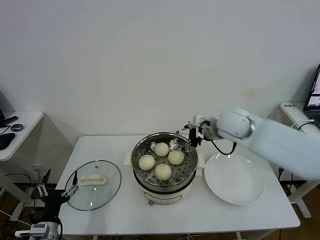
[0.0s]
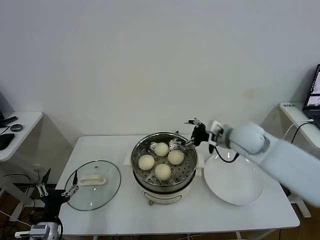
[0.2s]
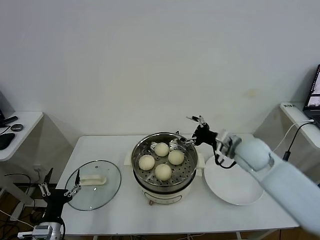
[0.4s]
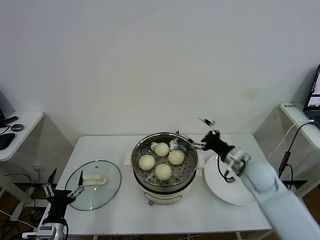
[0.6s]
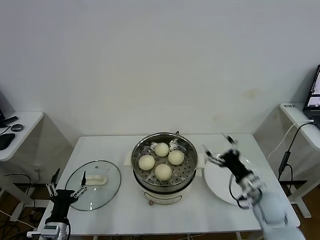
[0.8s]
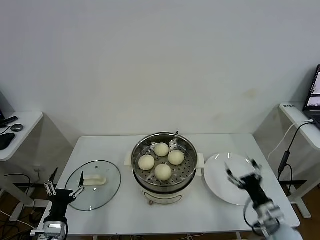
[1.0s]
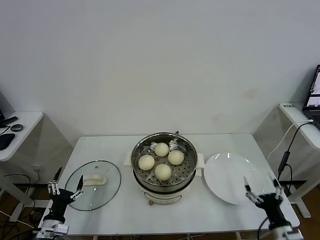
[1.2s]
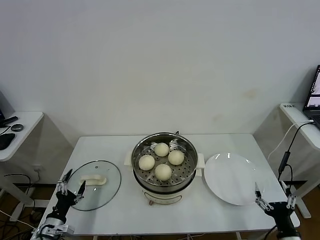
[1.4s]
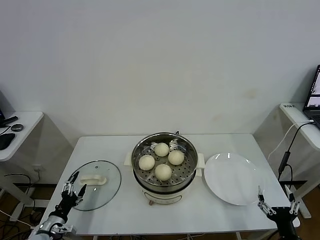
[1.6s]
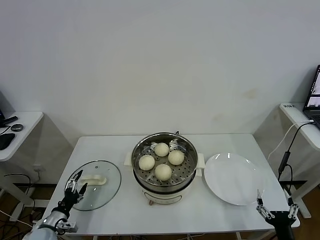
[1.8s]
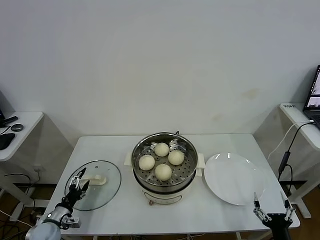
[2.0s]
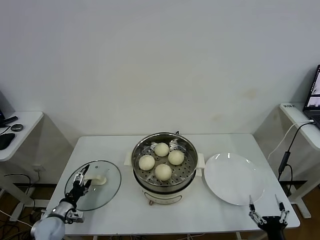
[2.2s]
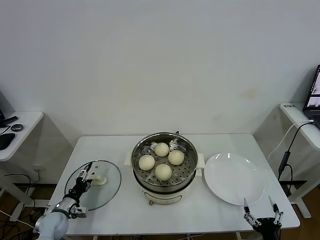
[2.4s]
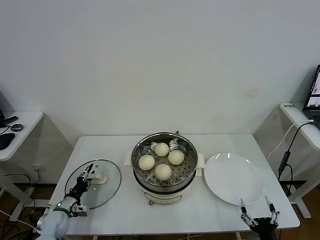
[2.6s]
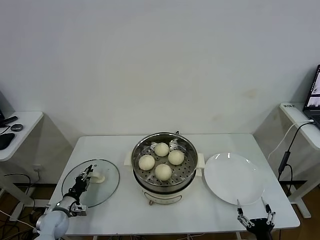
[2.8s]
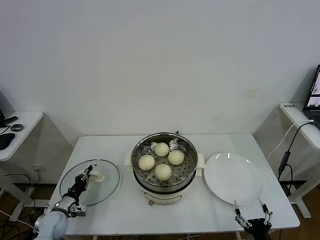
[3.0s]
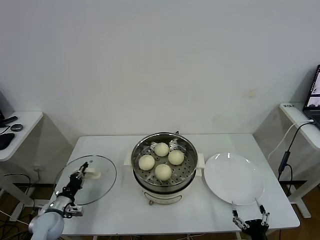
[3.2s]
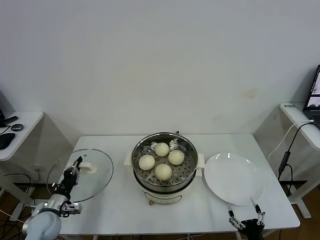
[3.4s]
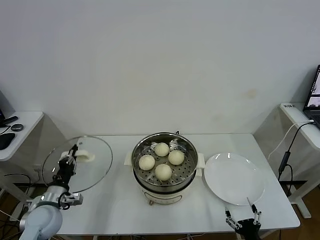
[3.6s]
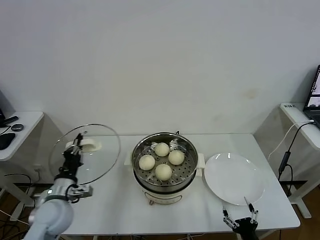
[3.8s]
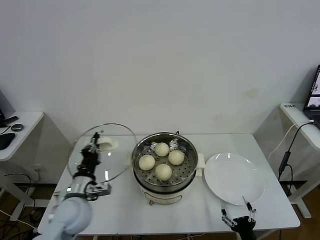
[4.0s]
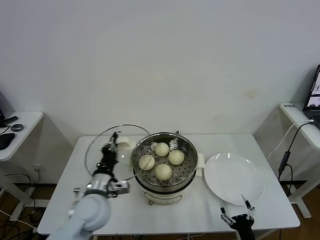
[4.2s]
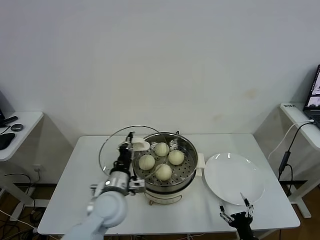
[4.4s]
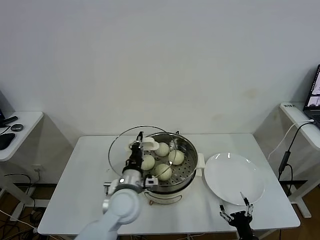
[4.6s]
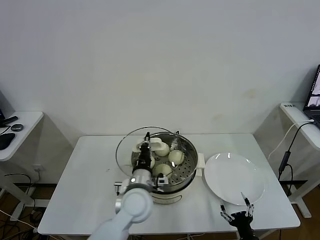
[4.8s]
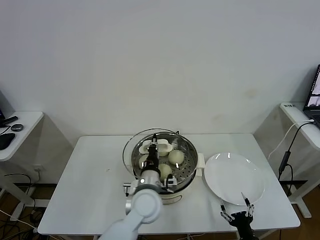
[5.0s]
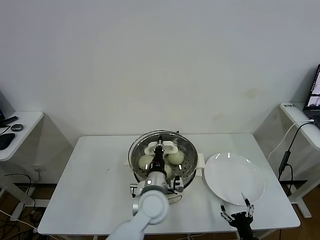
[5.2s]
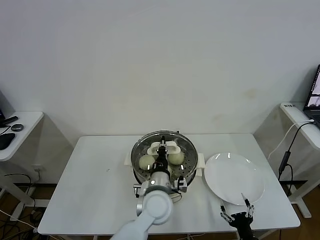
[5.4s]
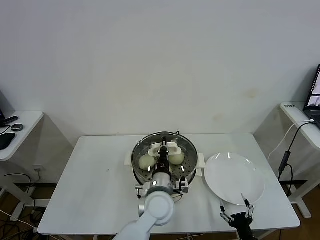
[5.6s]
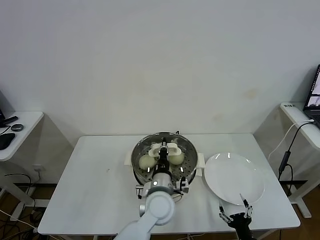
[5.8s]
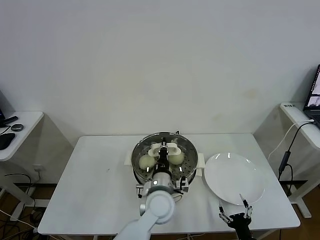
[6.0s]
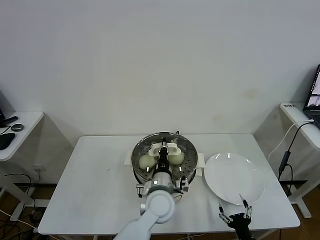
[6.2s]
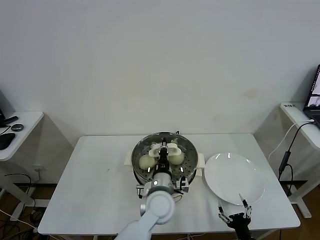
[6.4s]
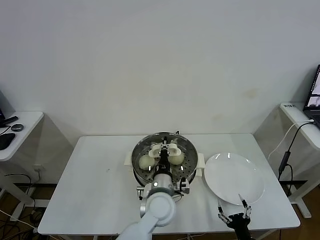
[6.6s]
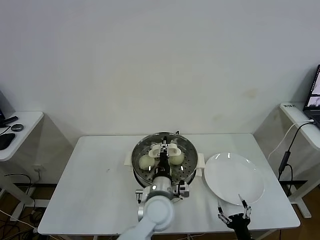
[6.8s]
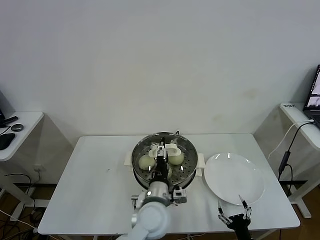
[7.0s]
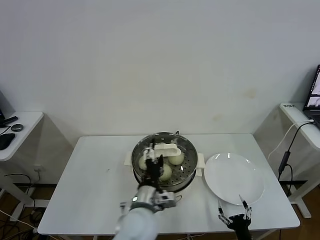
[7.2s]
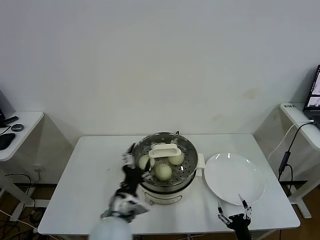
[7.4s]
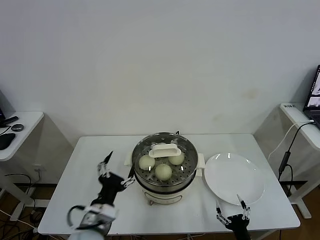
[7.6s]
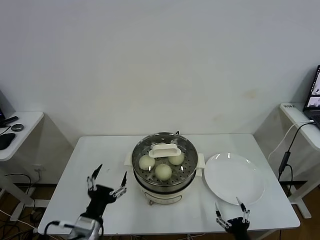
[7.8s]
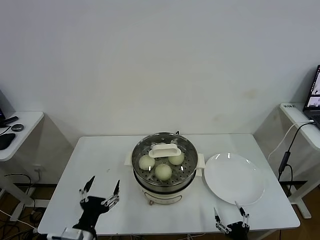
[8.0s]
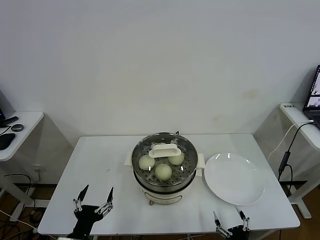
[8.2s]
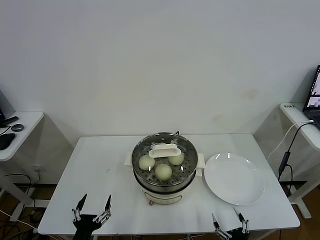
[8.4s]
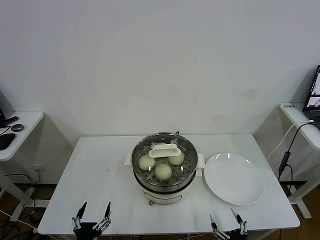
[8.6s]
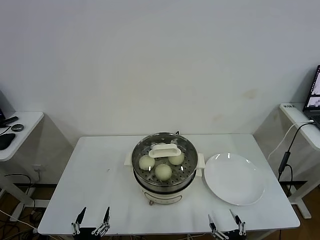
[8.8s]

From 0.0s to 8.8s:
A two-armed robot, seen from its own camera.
Task of the whole recording: take steamed baozi put them in steamer.
Step, from 0.0s to 3.0s: Grasp the pot lid with left gripper.
Step, from 3.2s to 7.2s: Place the pot lid on the steamer with left gripper.
From 0.0s to 1.4s: The right gripper moves backward, downward and to the right, roughly 50 cm, while the left gripper heads downward, covering about 5 cm.
From 1.4s to 3.0s: The left gripper moves forward, some 10 cm, and closes up; the right gripper shifts approximately 5 cm to the left.
From 3.0s to 4.4s: The right gripper shifts by some 5 cm, while the left gripper goes approximately 30 cm to the right and upward.
From 4.4s to 5.8s: The left gripper shifts some 15 cm to the right.
From 5.8s to 7.4s: The left gripper shifts approximately 15 cm to the left and backward, and opens its fingers.
From 7.4s to 8.8s: The right gripper shifts about 5 cm backward. The left gripper shifts roughly 25 cm to the left, backward and downward.

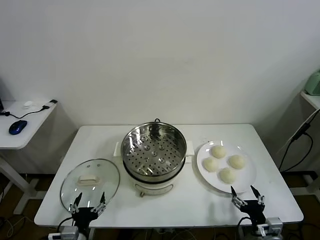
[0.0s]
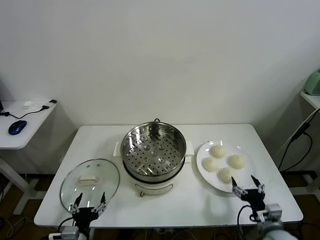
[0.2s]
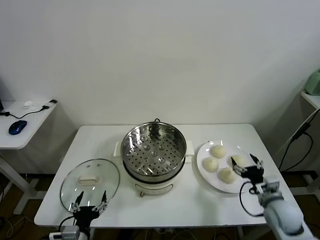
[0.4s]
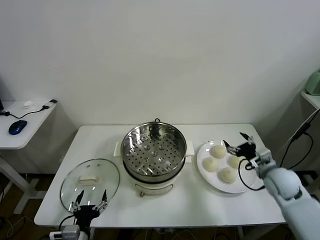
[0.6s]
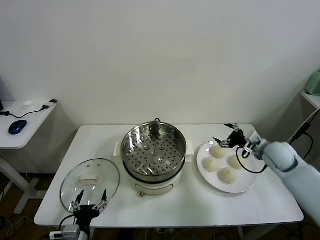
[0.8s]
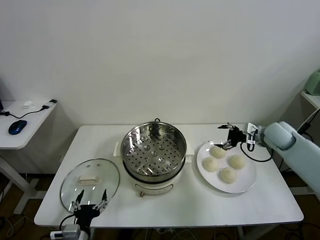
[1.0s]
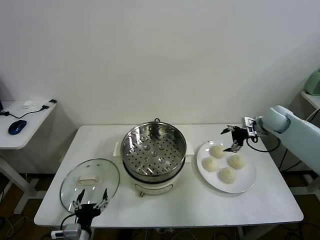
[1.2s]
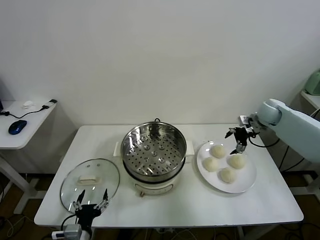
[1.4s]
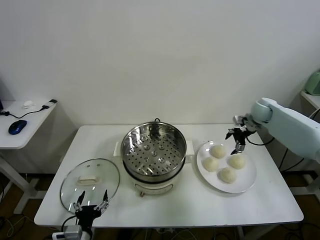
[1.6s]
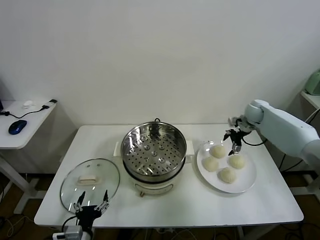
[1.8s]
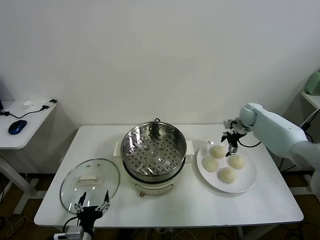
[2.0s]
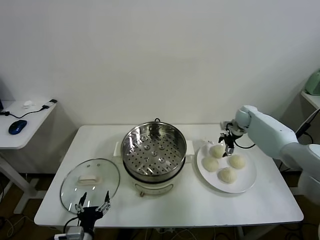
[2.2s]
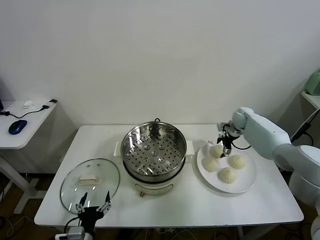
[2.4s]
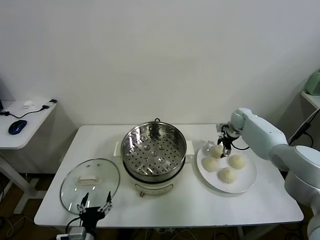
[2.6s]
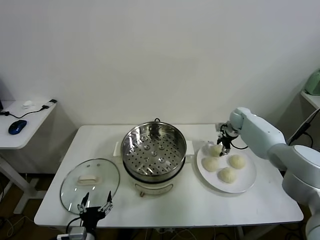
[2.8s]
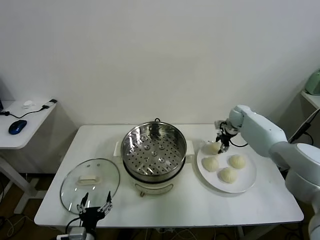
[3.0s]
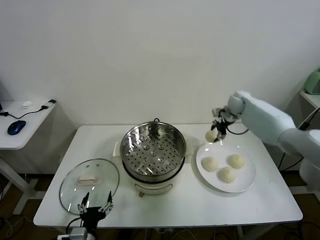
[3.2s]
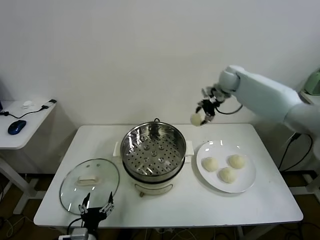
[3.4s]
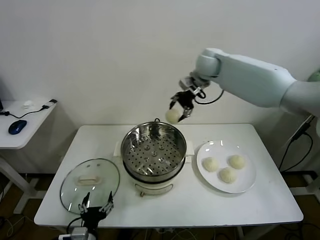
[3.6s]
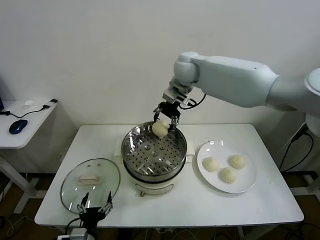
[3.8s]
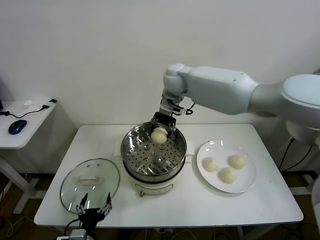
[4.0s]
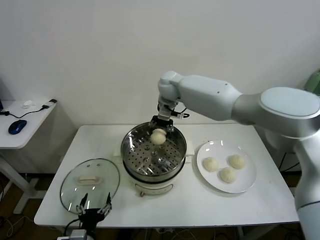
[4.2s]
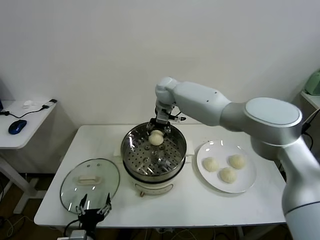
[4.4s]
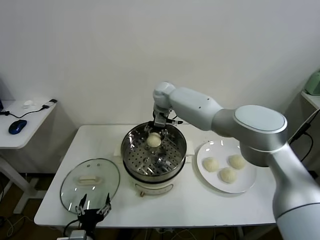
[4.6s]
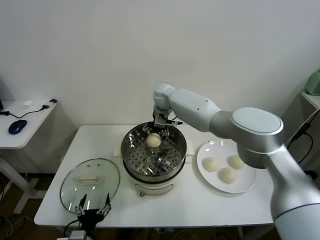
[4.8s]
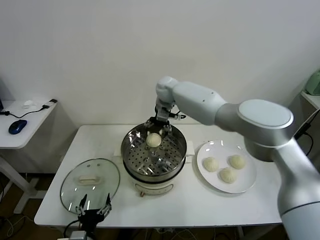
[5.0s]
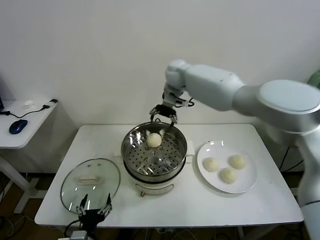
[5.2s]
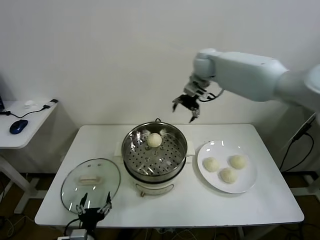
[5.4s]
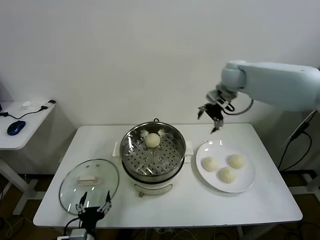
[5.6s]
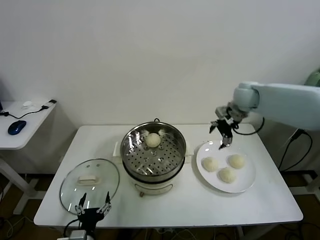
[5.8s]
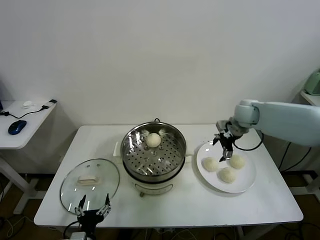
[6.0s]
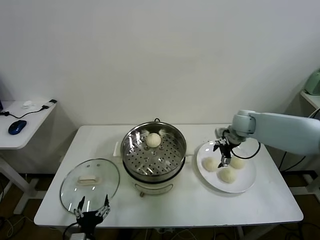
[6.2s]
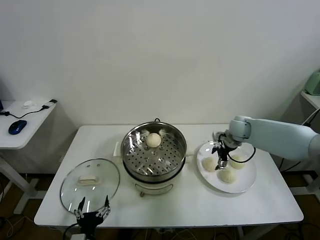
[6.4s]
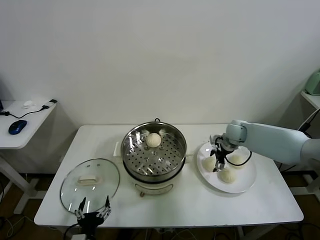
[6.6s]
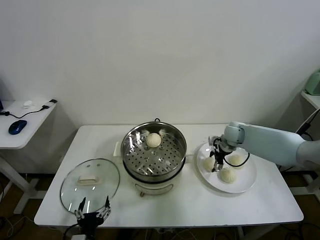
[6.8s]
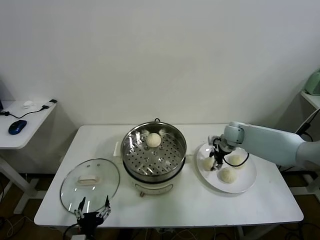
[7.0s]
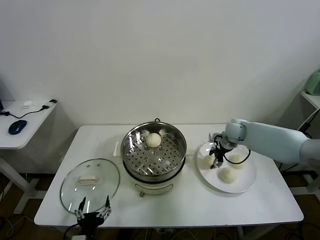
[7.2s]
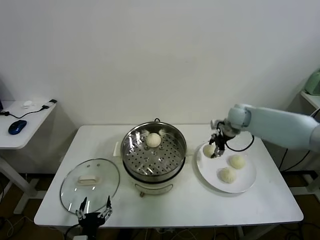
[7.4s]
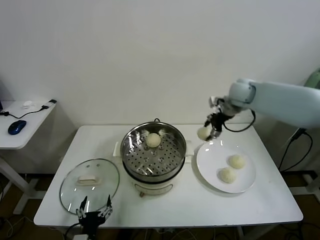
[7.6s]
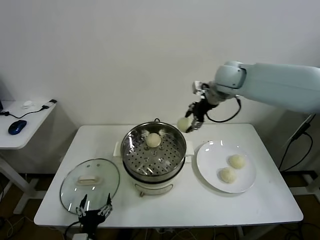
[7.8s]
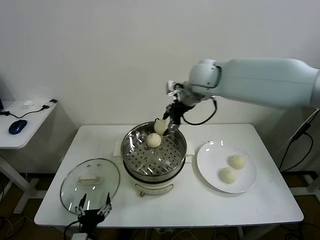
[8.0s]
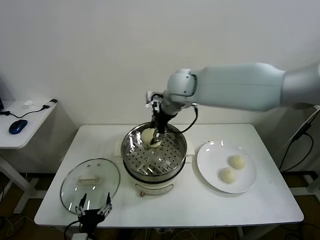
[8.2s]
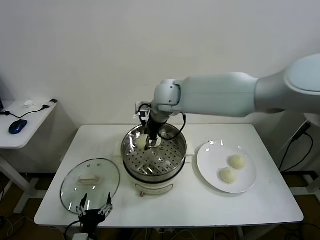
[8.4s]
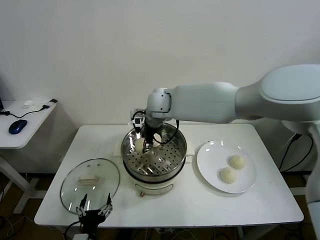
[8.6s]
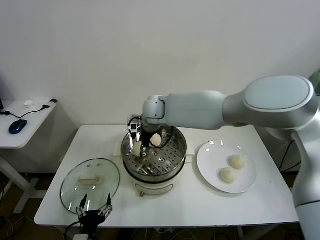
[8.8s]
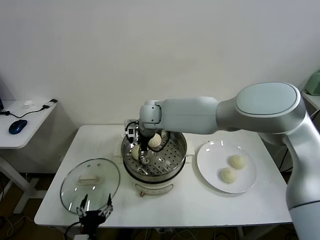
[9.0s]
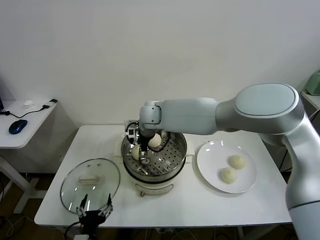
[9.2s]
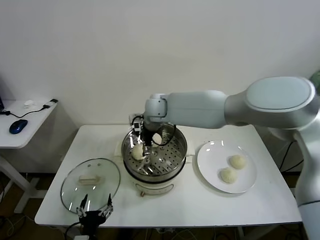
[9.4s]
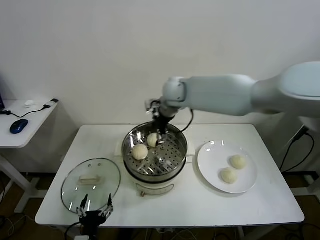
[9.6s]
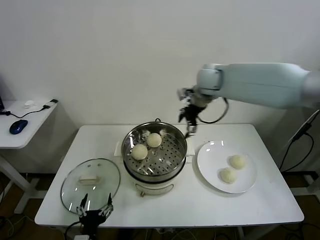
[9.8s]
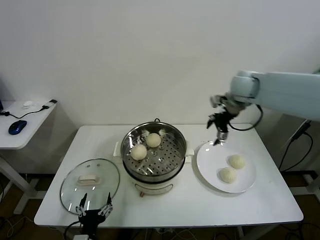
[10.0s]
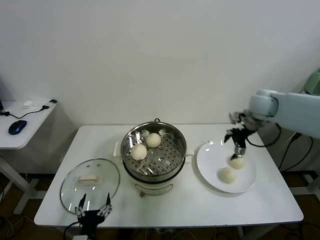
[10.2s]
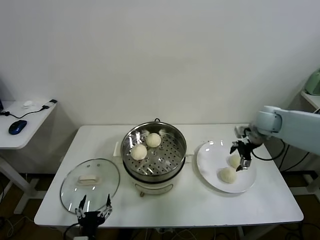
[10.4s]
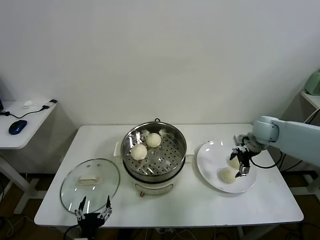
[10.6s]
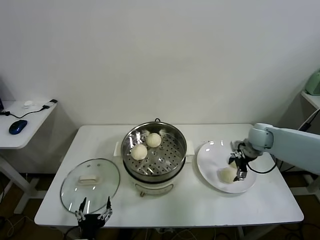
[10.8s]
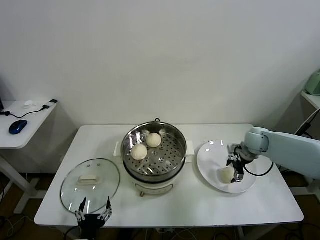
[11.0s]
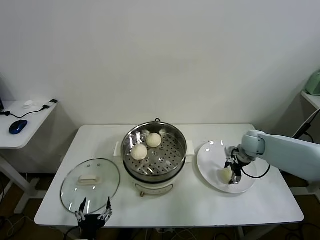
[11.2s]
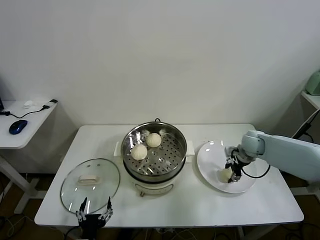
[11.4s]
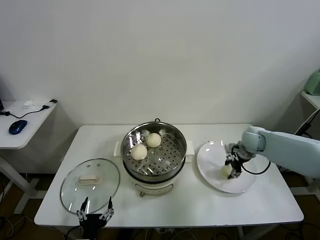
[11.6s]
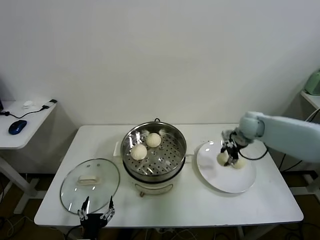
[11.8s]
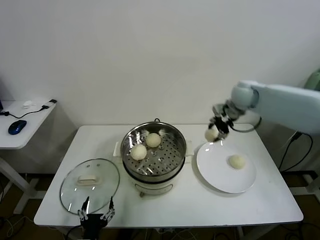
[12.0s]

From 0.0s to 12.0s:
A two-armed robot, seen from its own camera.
Task of the whole recording: take steamed baozi put them in steamer.
Step, from 0.0s to 2.8s: Grasp the baozi in the plate with right gripper.
Step, from 3.0s to 5.0s: Place the baozi on the steamer with right gripper.
Step, from 5.2s to 7.0s: Grasp the baozi in the plate with right gripper.
Step, from 7.2s to 9.2s: Place the baozi on the steamer with right gripper.
Step, from 9.6s to 11.6s: Grasp the baozi in the plate with right gripper.
From 1.6s to 3.0s: The right gripper moves to the left, about 5 cm, and closes up.
From 3.0s to 4.4s: The right gripper is displaced to the left by approximately 30 cm.
From 4.4s to 6.0s: The right gripper travels to the right by roughly 30 cm, and opens.
From 6.0s to 7.6s: The right gripper moves upward and to the left, about 15 cm, and closes its fingers.
From 7.6s to 9.0s: The right gripper is displaced to the left by about 30 cm.
From 9.0s to 10.4s: The right gripper moves to the right, roughly 40 cm, and opens up.
From 10.4s to 12.0s: The right gripper shifts some 15 cm upward, to the left and forward, and closes.

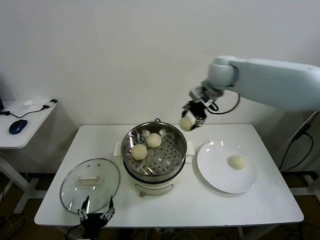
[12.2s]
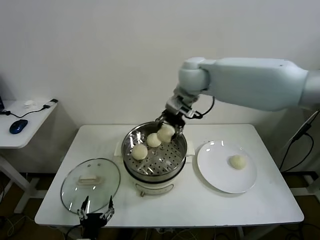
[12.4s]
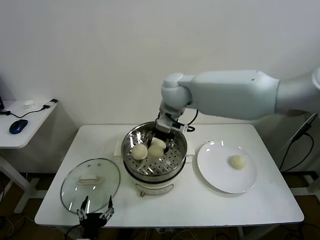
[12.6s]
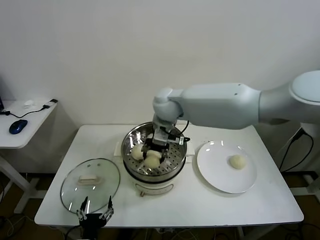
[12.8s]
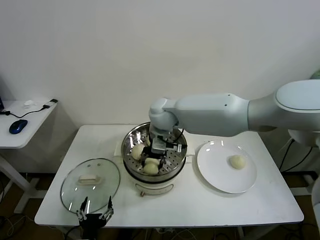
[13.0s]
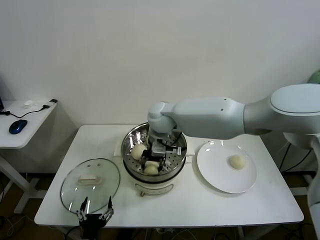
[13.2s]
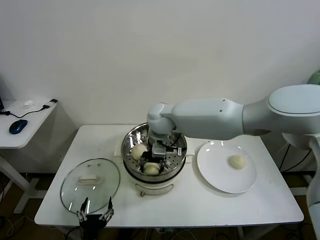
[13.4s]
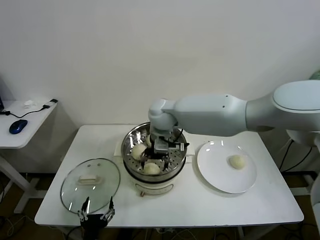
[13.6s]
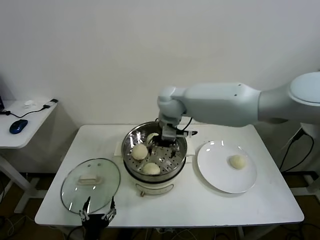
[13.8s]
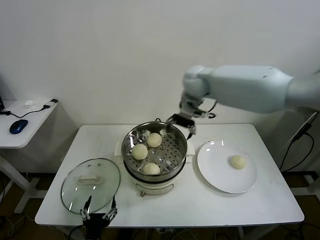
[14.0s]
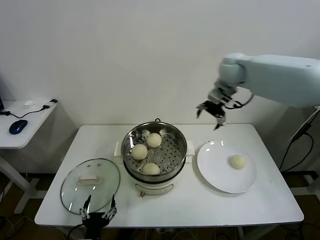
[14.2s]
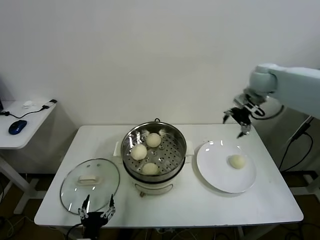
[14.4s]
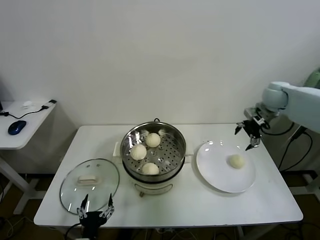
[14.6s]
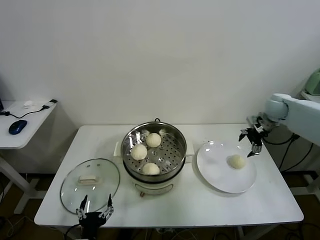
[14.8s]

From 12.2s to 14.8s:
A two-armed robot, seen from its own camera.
Task of the whole recording: take steamed baozi put them in steamer.
Step, from 12.2s to 13.4s: Place the baozi on the steamer with right gripper.
From 12.2s to 13.4s: The right gripper moves to the left and downward, approximately 20 cm, and opens.
From 13.4s to 14.8s: The right gripper goes some 40 cm to the right, and opens its fingers.
